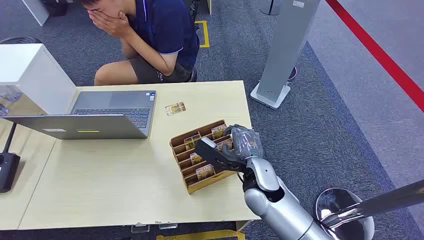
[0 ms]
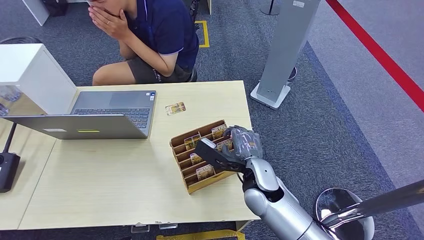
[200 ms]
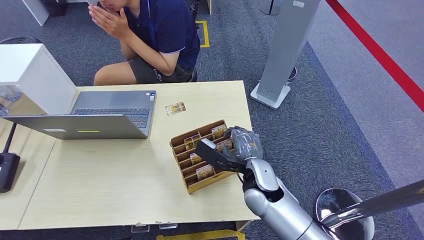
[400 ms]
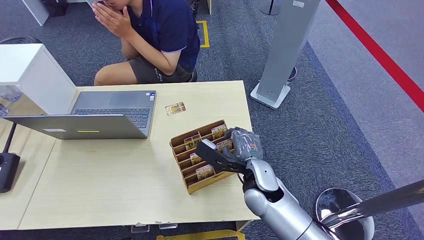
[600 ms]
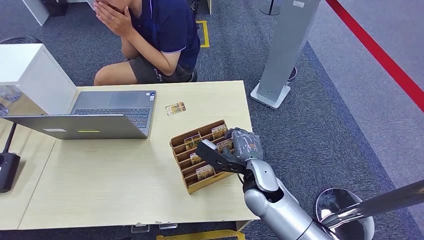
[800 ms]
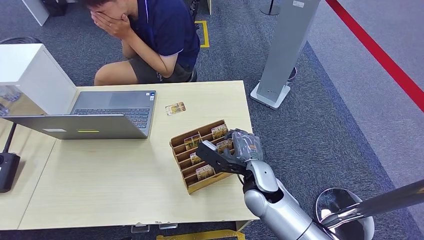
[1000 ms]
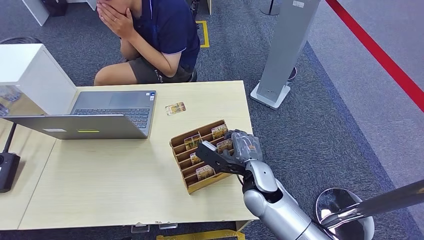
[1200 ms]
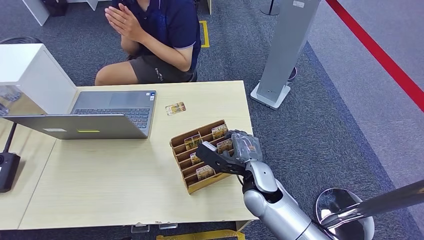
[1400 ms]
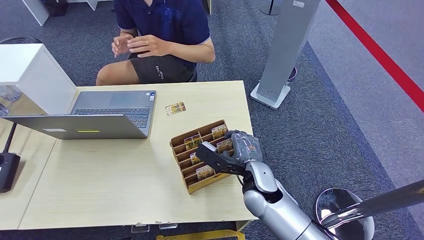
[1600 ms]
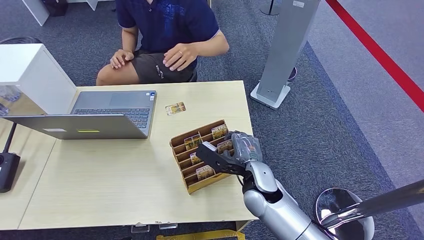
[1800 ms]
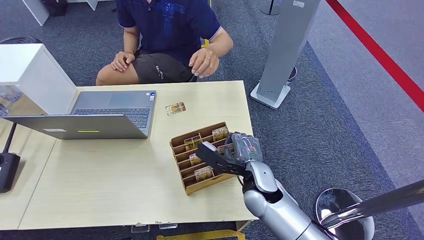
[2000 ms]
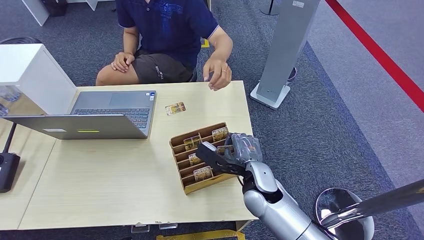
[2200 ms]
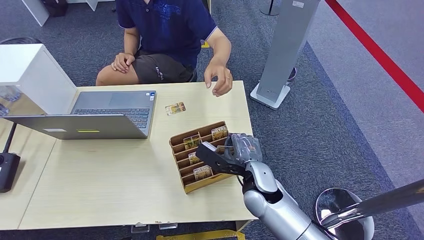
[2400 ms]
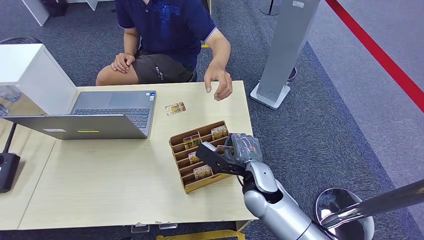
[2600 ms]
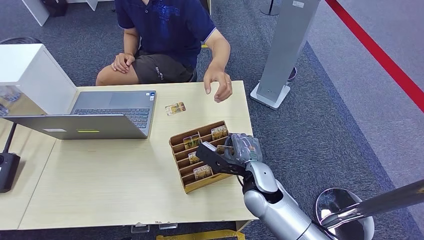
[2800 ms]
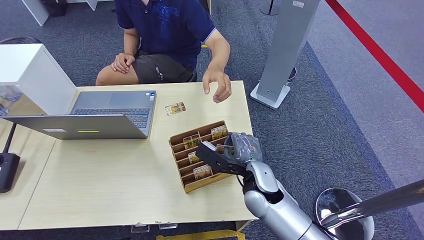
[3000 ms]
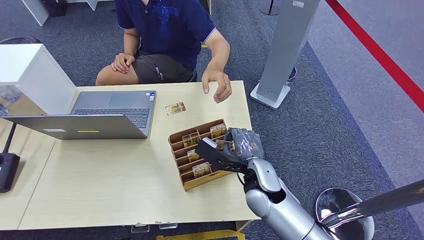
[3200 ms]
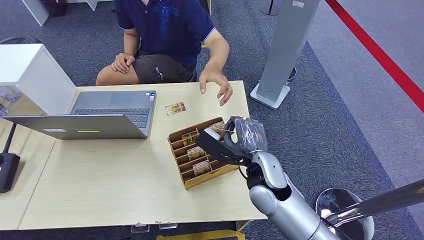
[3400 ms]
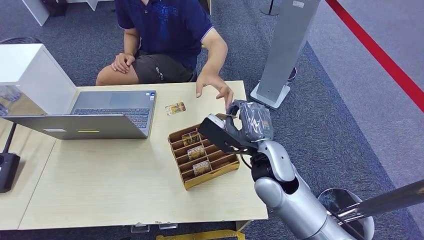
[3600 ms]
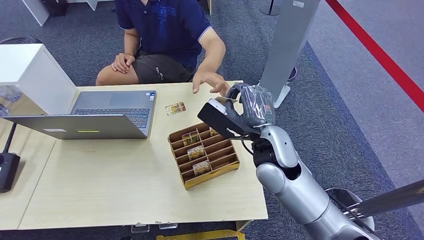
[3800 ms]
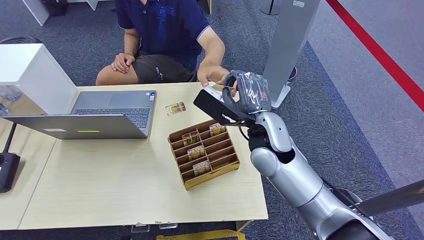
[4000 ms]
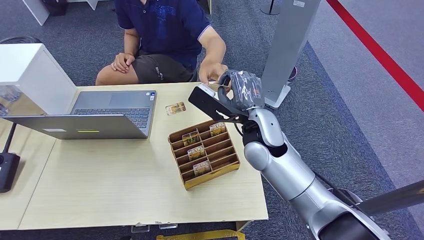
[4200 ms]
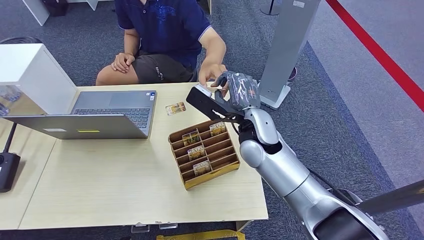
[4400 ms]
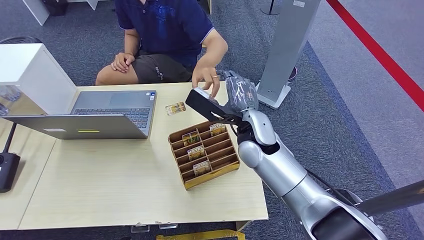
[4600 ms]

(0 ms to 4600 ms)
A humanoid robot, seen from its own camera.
Step, 0 ms - 2400 ms: Pick up the key card from the card box.
Step, 3400 ms - 4600 ms: Hand the key card to the target.
1600 ms - 3000 ms: The two hands keep their place.
3000 ms - 4600 ms: The right hand travels upward and forward by some 15 cm.
